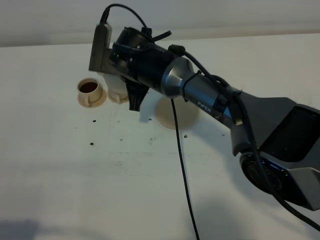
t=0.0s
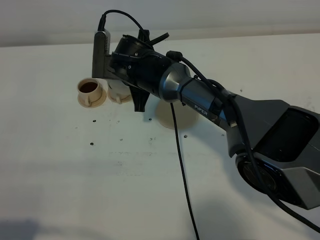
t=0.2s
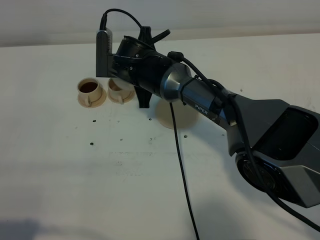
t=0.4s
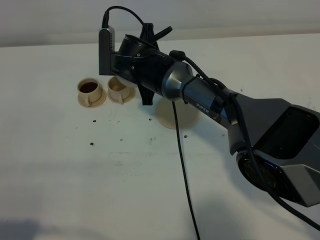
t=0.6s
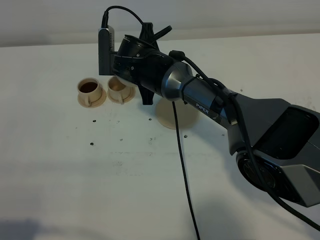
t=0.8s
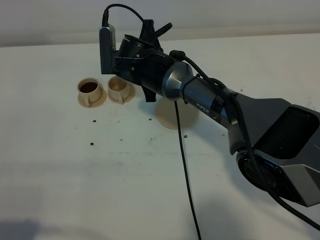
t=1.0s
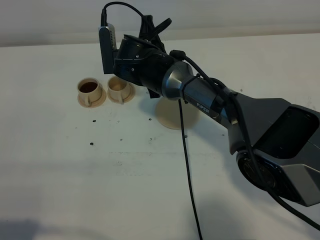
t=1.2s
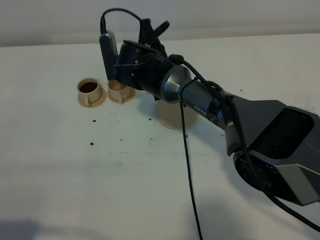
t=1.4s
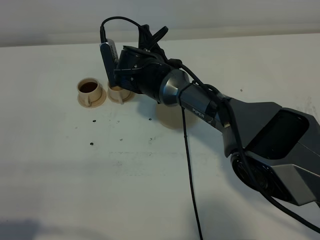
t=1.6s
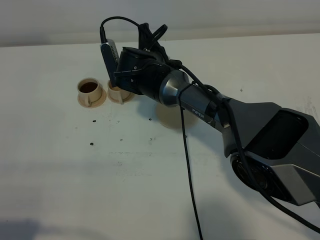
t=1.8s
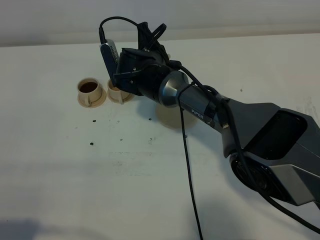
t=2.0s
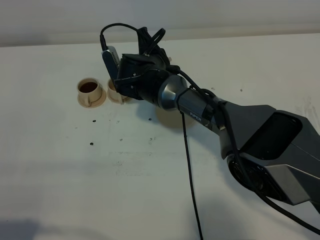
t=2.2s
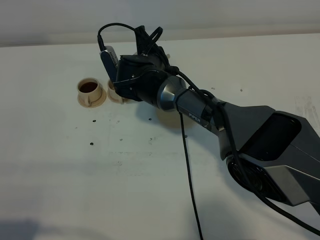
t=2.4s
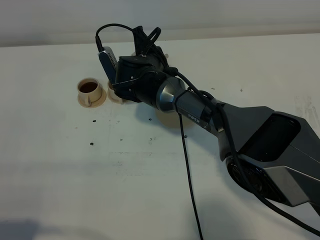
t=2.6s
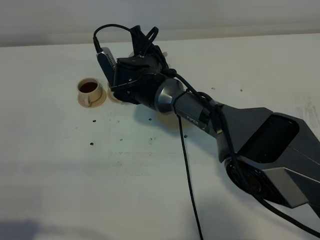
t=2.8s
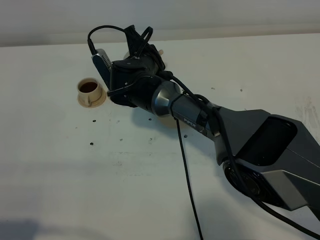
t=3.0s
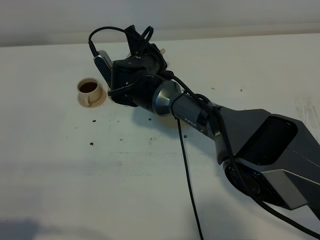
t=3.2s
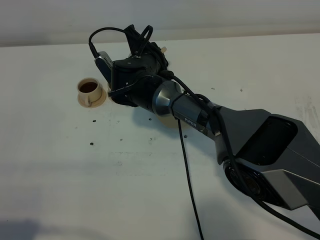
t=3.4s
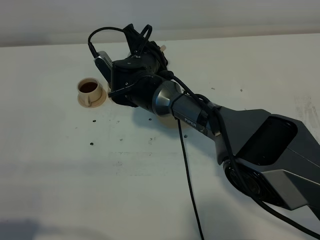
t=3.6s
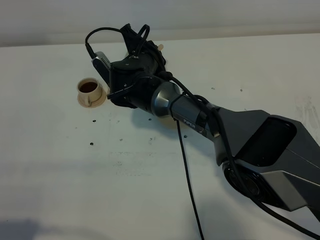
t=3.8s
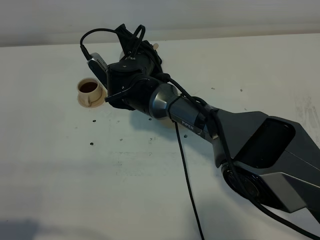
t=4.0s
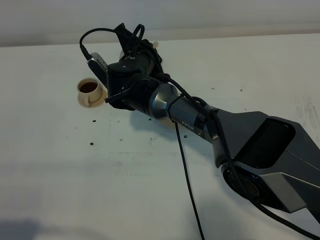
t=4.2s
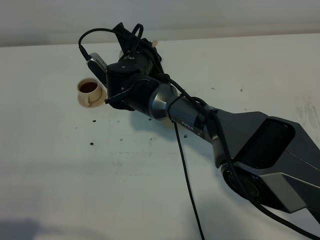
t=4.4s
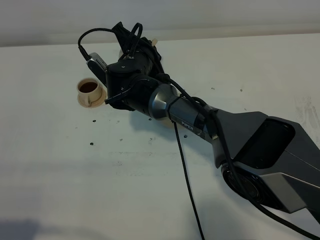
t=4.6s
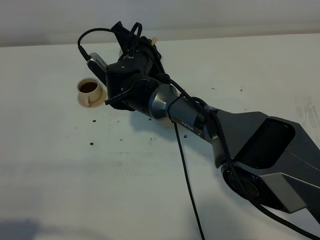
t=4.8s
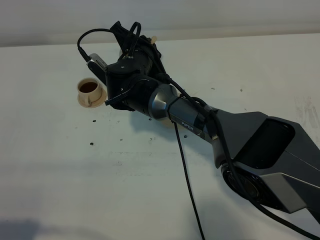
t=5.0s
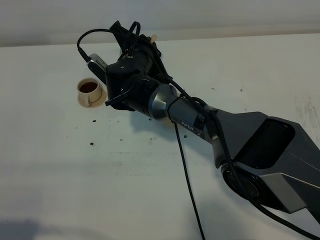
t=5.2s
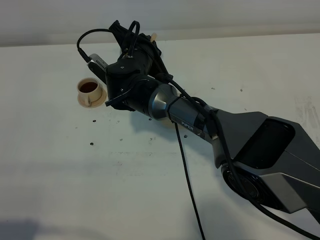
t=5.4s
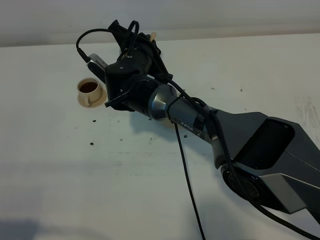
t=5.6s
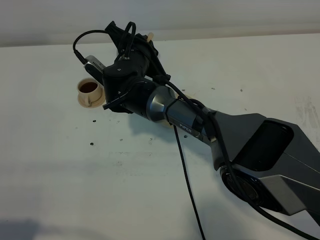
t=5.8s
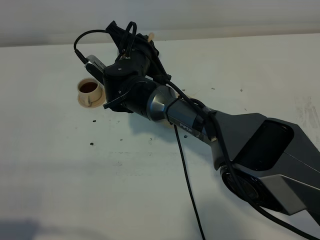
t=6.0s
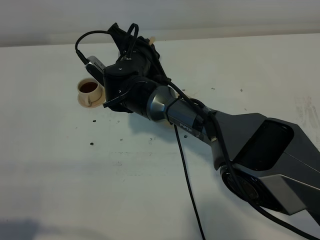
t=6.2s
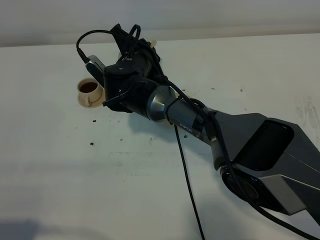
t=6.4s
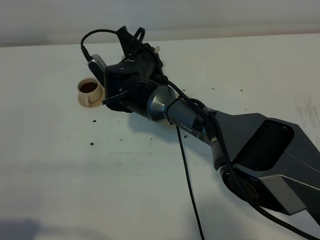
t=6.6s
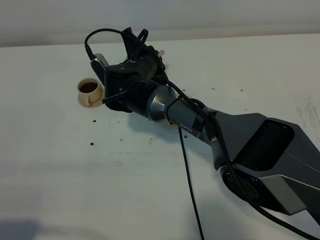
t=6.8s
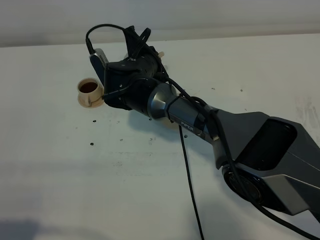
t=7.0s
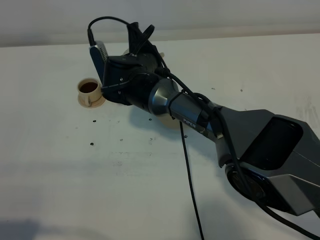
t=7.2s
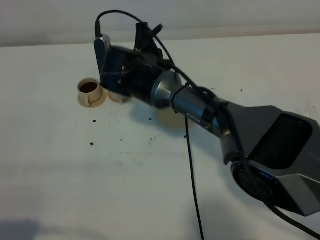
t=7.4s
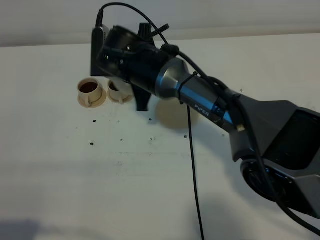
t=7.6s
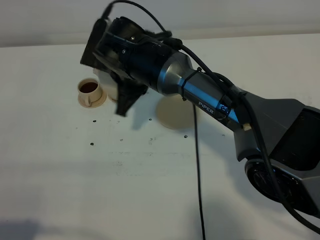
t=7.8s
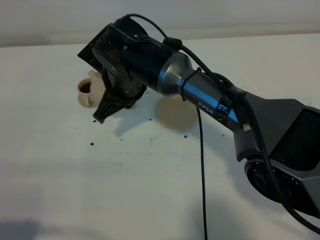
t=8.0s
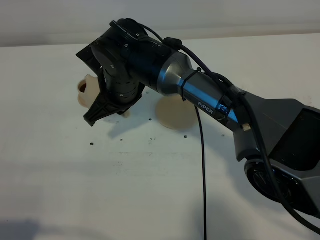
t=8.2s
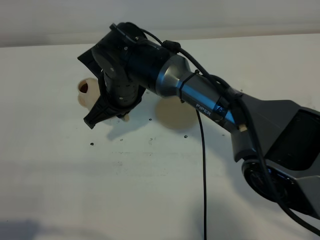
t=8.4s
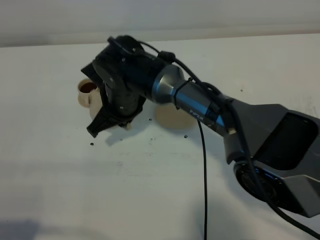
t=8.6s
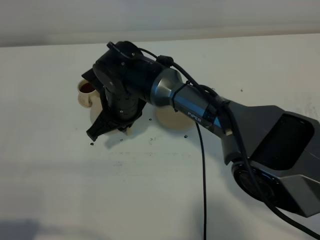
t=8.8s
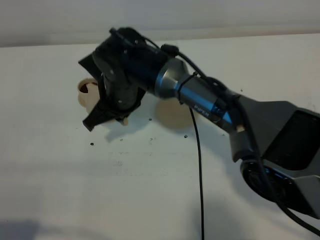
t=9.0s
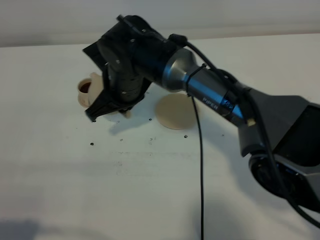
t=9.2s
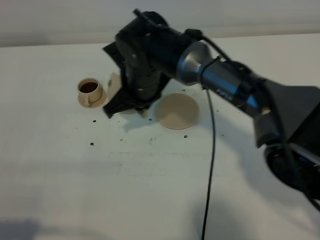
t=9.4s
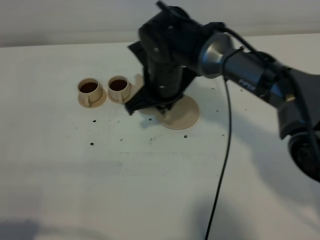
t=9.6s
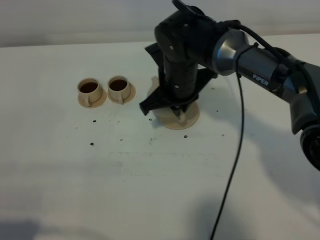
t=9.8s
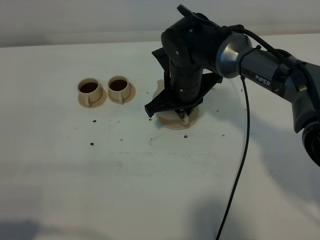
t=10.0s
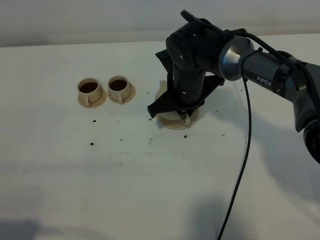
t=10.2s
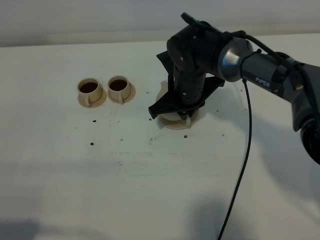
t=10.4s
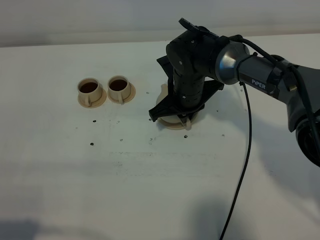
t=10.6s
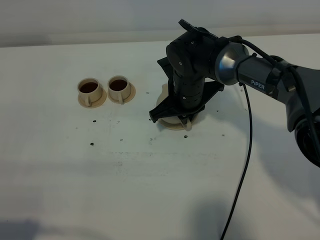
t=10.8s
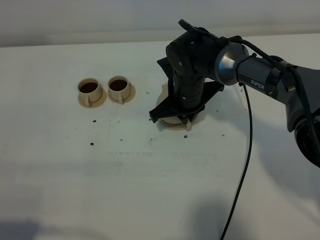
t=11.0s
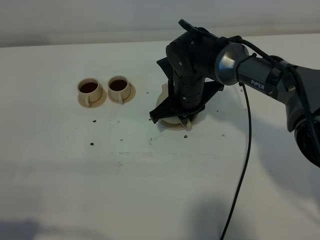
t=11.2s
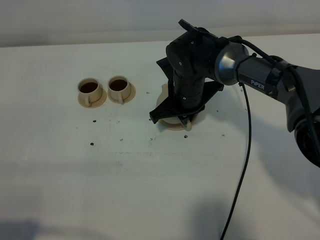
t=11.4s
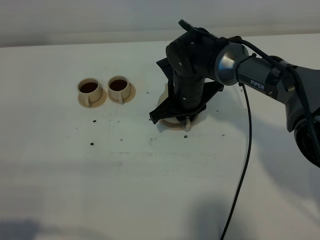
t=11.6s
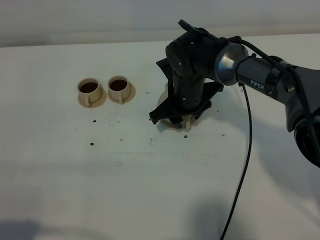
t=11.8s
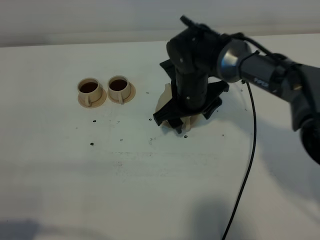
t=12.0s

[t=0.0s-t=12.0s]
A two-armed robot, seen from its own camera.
Task of the whole recording: grasp the brown teapot and pour the tea into the two brown teacups one by one, put the brown teapot back in its original place.
Step, t=0.0s to t=7.4s: Pour tea into the teacup with the right gripper.
t=1.6s to t=3.0s: The grippers move only a little.
t=3.0s to t=6.0s: The grippers move only a little.
t=6.0s to t=7.6s: The right gripper moves some 5 cm.
t=9.0s to t=10.4s: The right gripper is displaced to the right by approximately 10 cm.
t=10.4s to t=12.0s: The right gripper opens up.

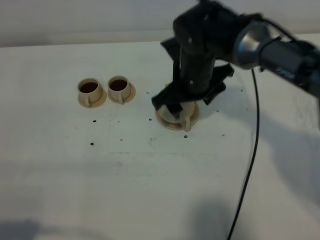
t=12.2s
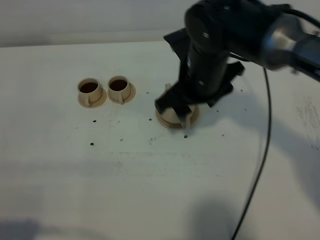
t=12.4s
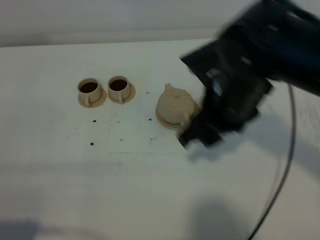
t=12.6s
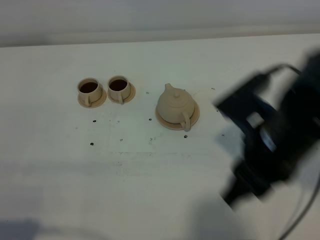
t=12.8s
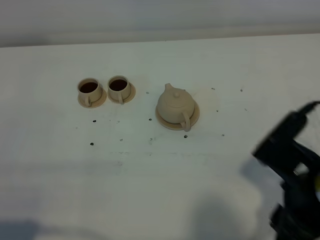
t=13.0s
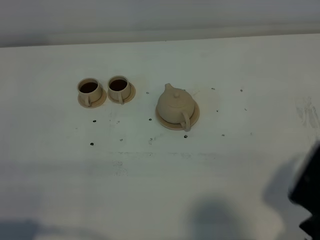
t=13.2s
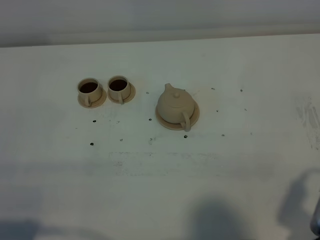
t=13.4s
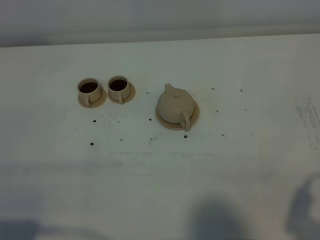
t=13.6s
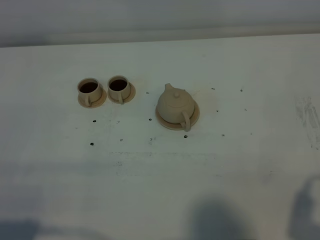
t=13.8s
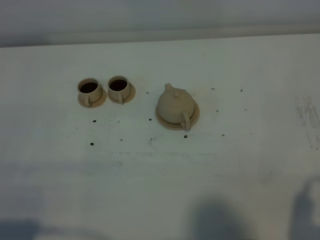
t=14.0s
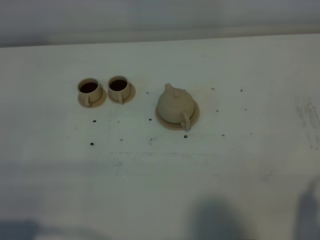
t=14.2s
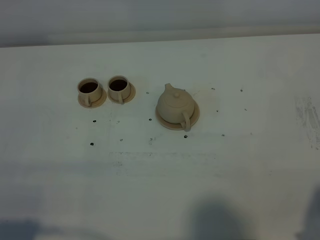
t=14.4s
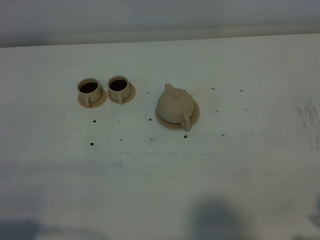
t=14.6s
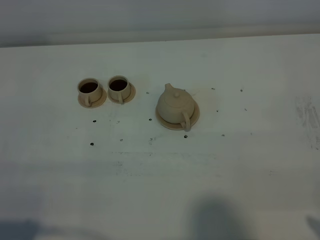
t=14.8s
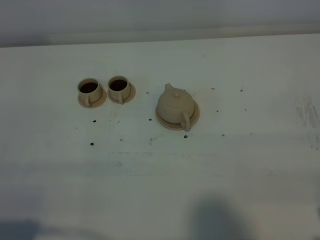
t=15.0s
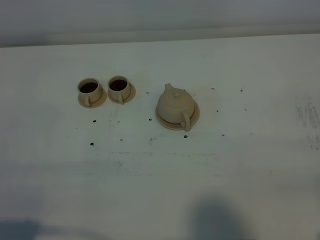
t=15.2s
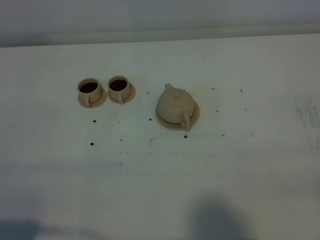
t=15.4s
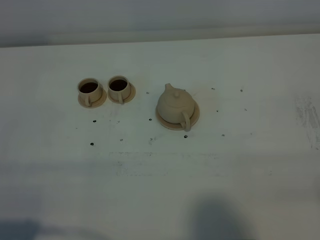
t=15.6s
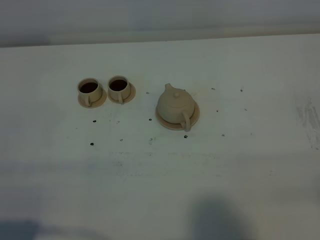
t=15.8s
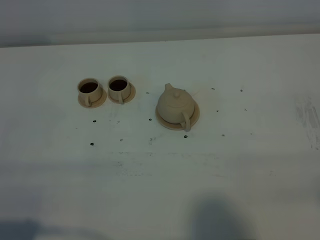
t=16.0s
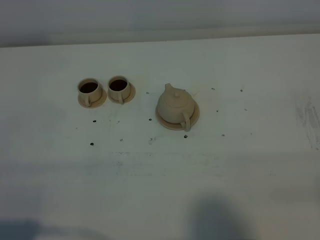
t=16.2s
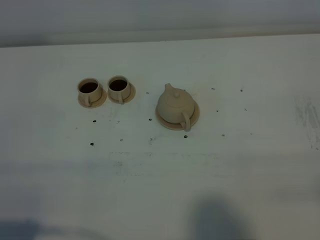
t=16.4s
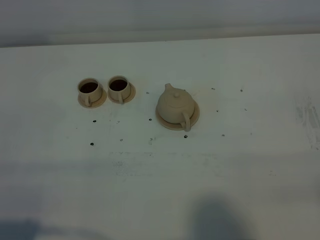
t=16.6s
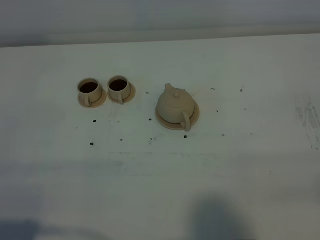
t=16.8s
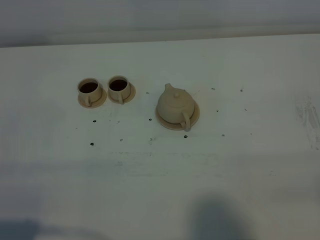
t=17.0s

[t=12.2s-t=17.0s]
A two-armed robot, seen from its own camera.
Task of the whole recording: grasp the brown teapot and pour the tea into the two brown teacups one by one, put the brown teapot back in its original place.
t=12.2s to t=13.8s: The right gripper goes roughly 40 cm backward and to the right.
t=13.8s to t=15.4s: The right gripper heads to the right, covering some 5 cm.
t=15.4s to t=17.0s: Both grippers stay about where they are.

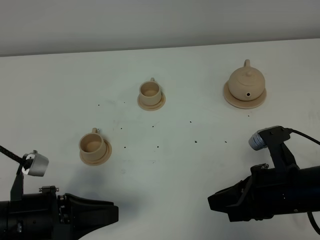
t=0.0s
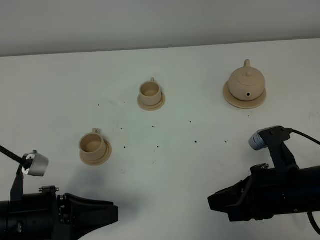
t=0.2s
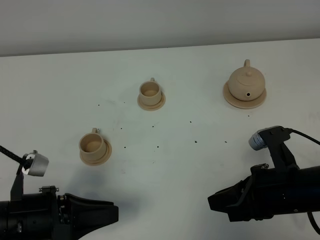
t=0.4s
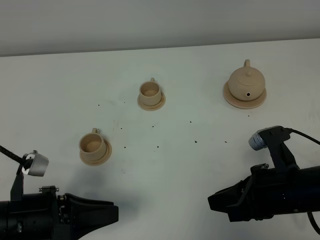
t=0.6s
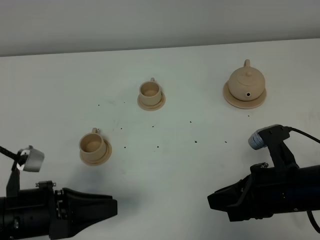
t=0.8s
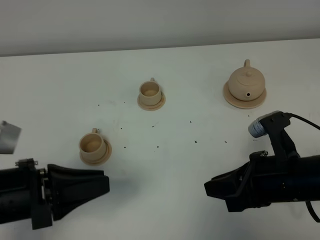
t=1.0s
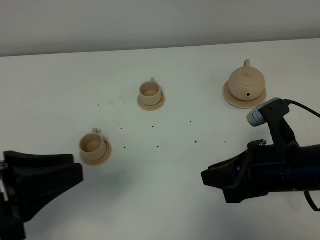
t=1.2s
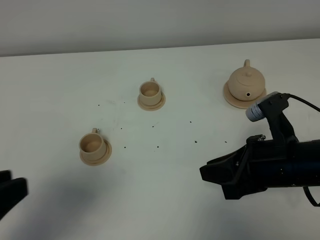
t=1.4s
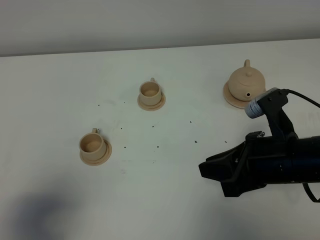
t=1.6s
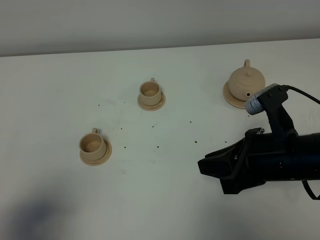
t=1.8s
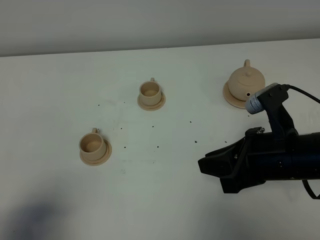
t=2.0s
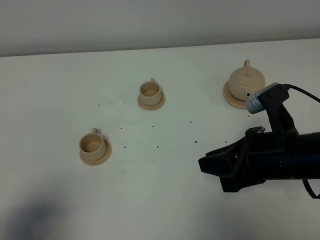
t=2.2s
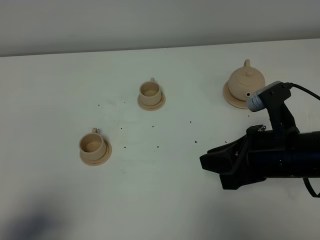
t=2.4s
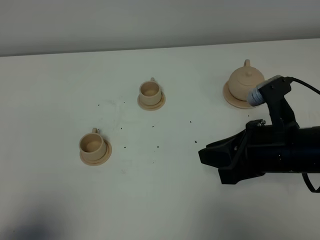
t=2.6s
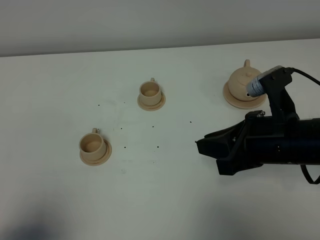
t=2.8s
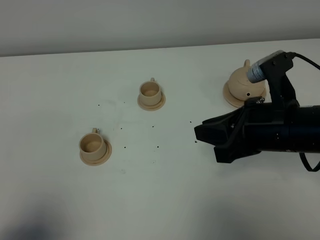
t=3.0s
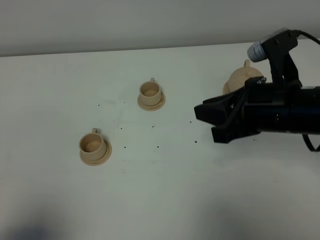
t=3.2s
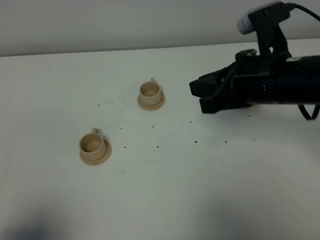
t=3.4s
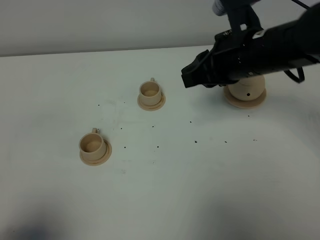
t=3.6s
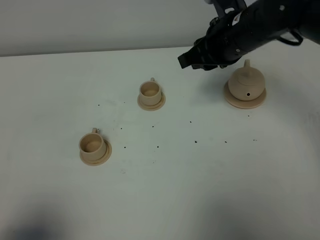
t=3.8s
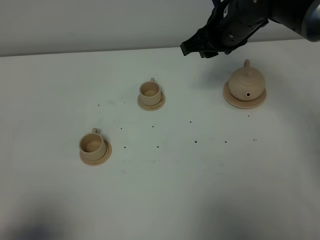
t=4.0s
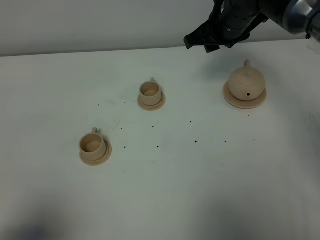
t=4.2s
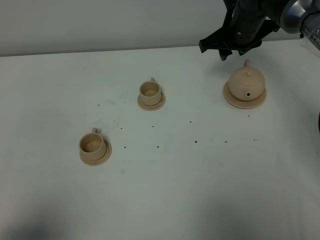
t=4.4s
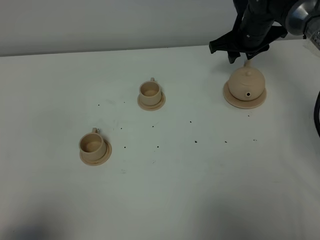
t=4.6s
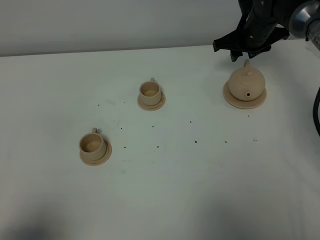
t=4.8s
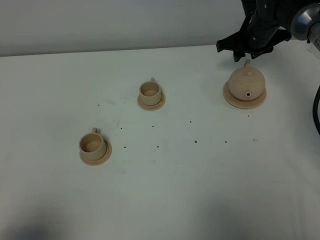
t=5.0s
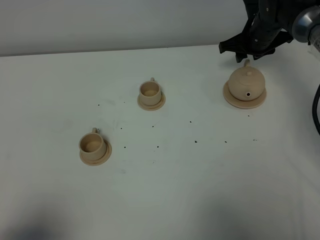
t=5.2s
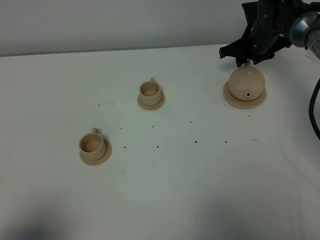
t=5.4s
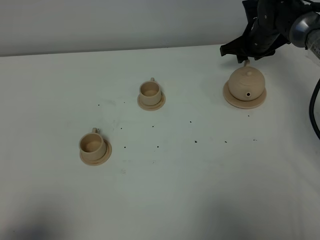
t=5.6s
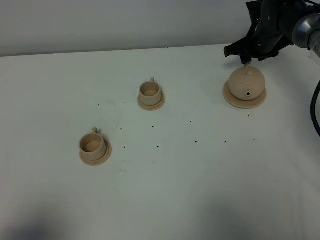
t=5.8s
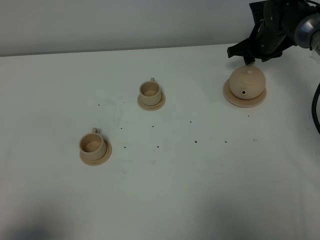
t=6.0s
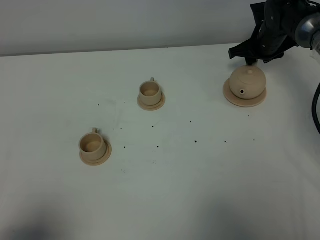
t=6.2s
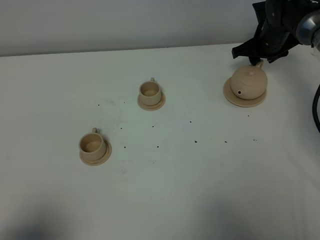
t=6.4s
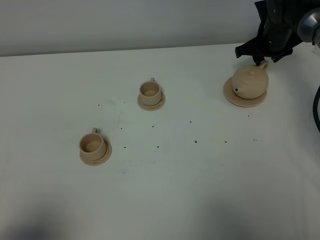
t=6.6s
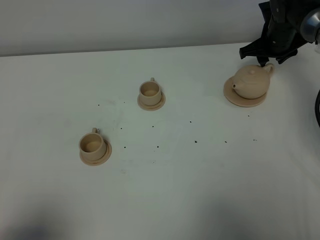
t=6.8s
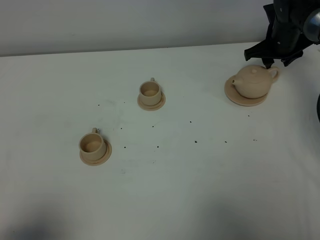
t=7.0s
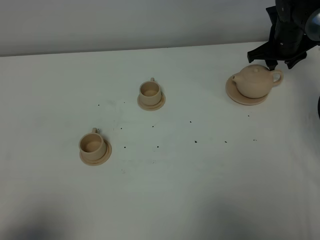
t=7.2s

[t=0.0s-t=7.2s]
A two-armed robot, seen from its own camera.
Task of the whole recording: grasp the brown teapot and pour the tea into the two brown teacups one by one, put the brown teapot back in its original place.
t=0.0s to t=1.4s: The left gripper goes roughly 15 cm upward and backward.
t=1.4s to t=2.8s: The left gripper goes about 10 cm backward and downward.
t=2.8s to t=4.4s: The right gripper moves forward, approximately 30 cm, and opens its fingers.
t=4.4s to t=5.8s: The right gripper travels downward, to the right and forward by approximately 10 cm.
t=5.8s to t=7.2s: The grippers move only a little.
